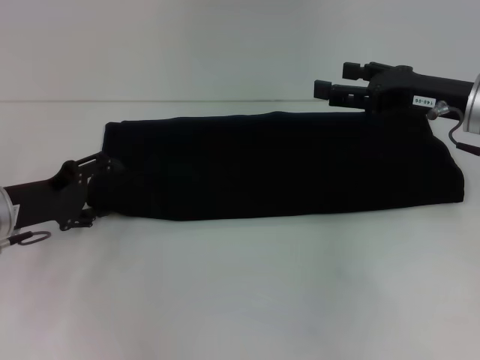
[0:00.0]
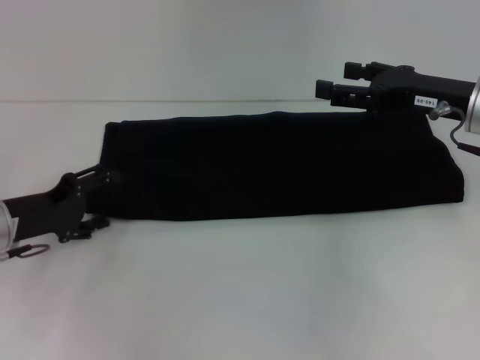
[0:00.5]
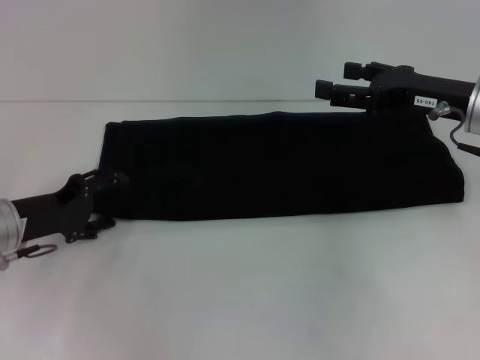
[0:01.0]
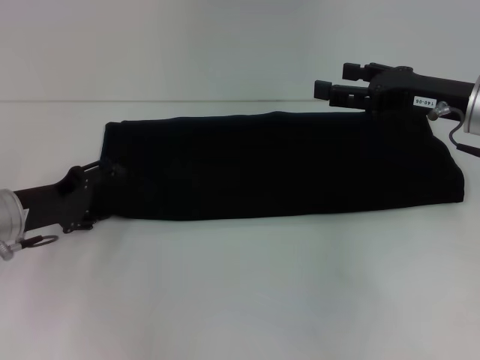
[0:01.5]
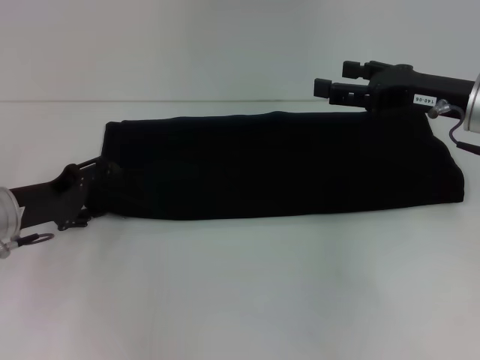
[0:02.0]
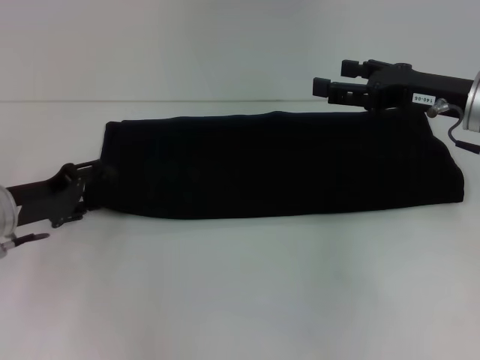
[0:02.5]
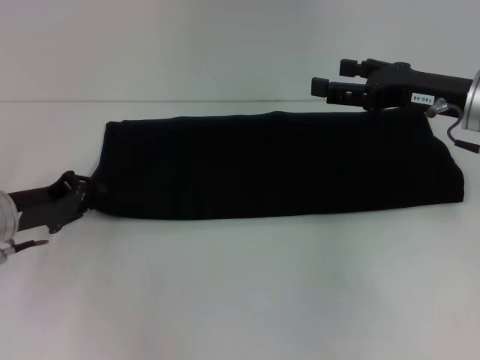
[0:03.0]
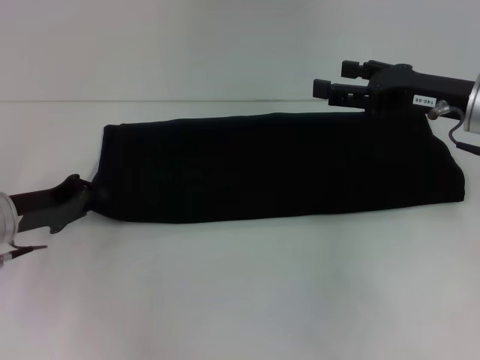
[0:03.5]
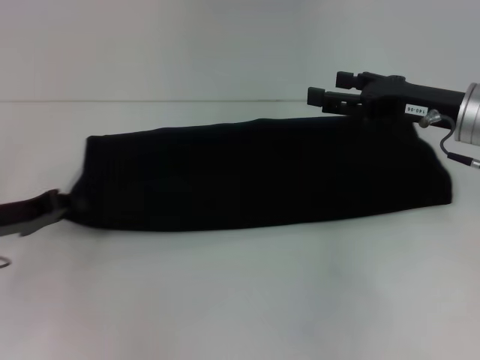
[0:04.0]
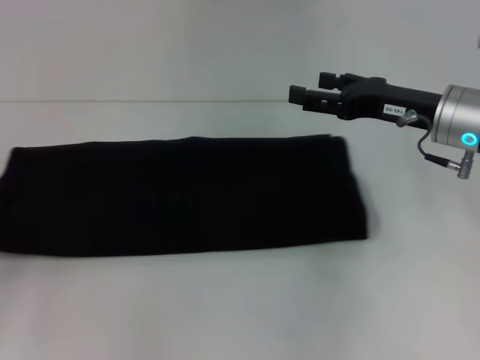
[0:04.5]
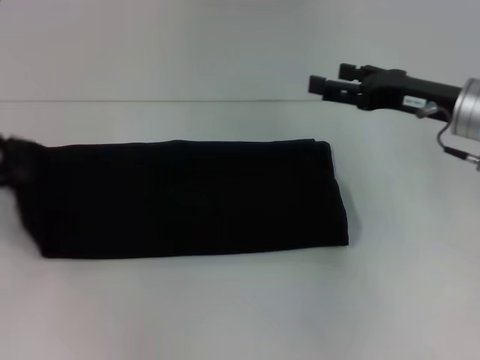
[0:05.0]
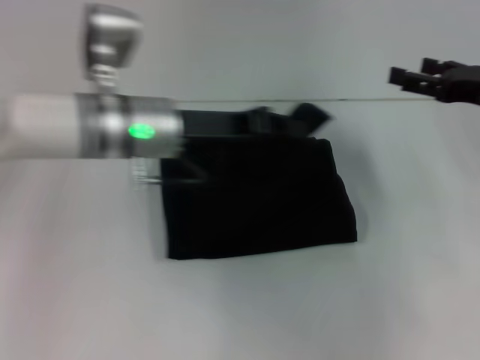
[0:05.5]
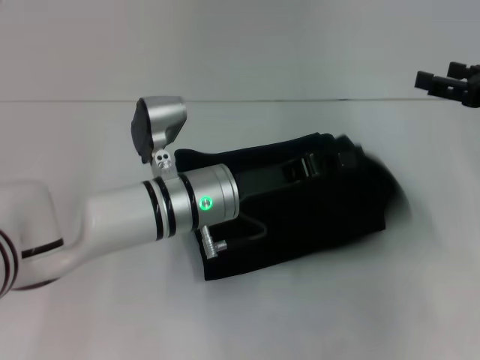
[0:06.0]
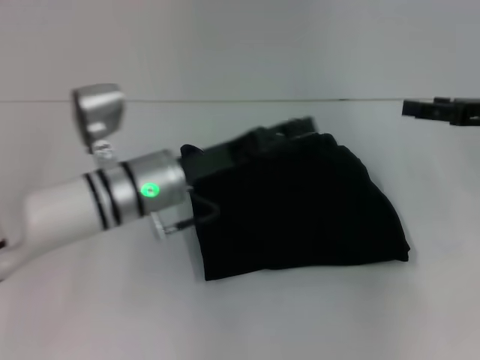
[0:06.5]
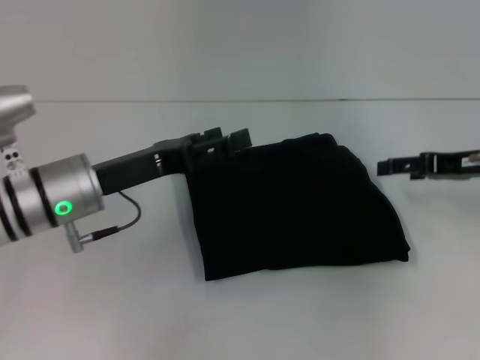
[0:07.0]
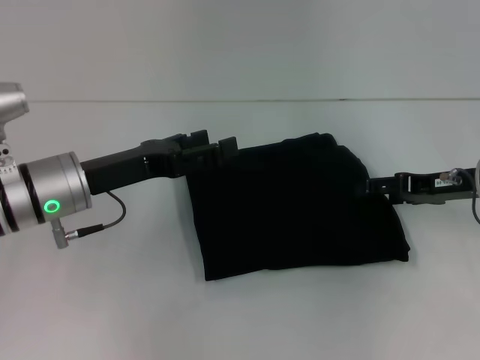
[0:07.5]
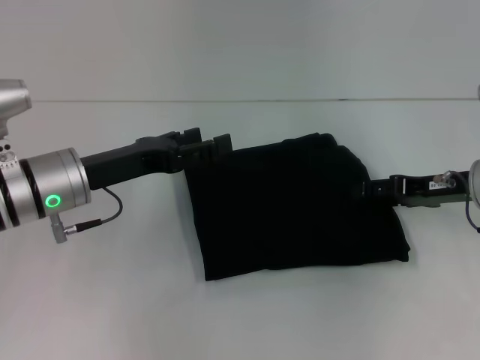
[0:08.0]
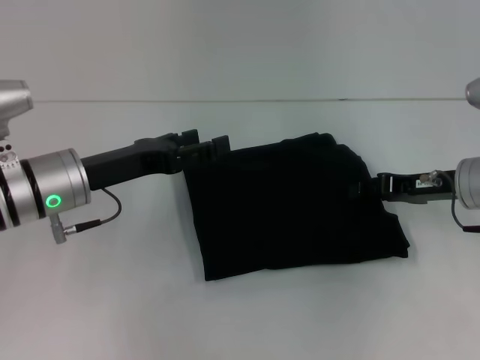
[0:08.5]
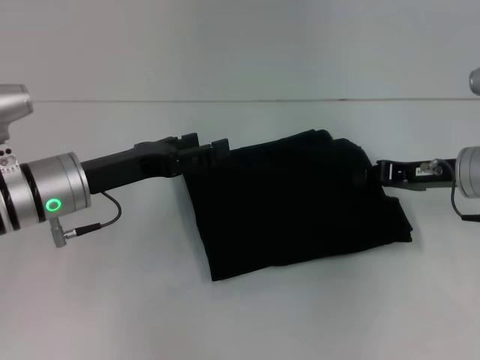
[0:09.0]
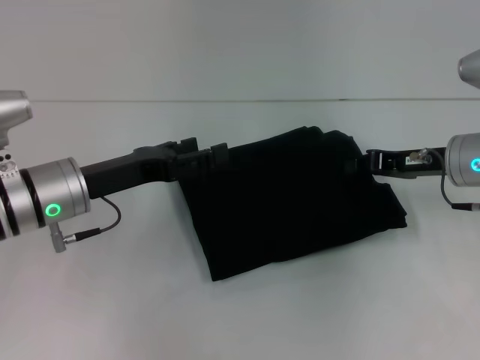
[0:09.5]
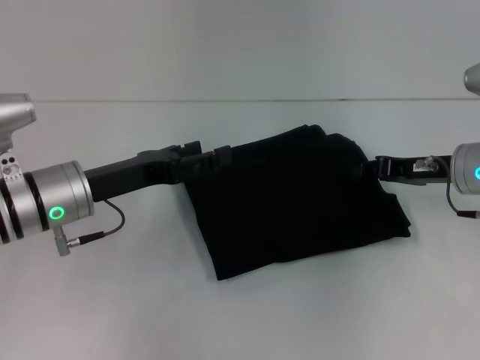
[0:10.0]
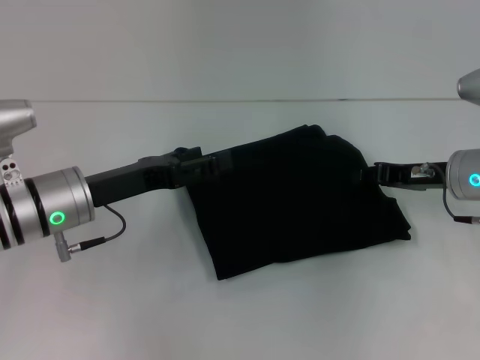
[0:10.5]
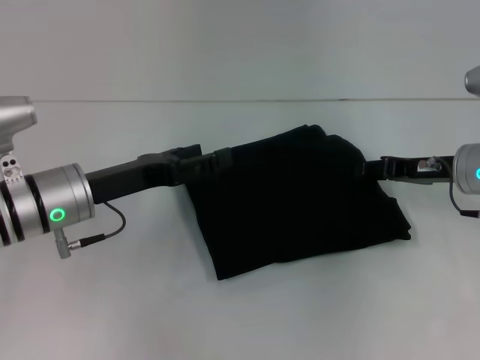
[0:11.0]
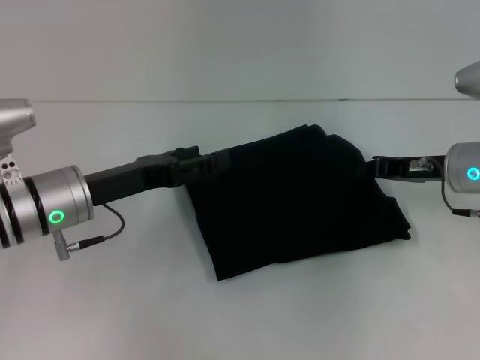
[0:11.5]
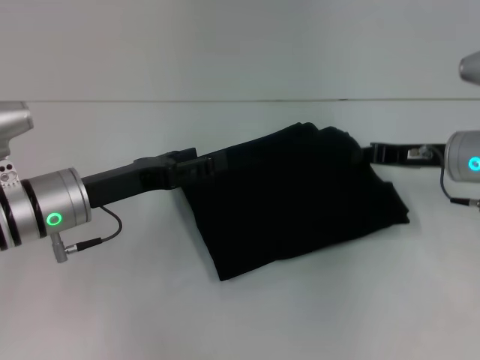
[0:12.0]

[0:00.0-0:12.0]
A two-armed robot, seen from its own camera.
Step, 0:00.0 to 0:06.0: Fold the clothes with your left hand.
0:00.0 to 0:02.0: There are only small adjustments of the grippers.
0:02.0 to 0:04.0: The left gripper closes.
0:04.0 to 0:06.0: The left gripper heads to the right, covering some 25 cm, while the right gripper shifts about 10 cm to the right.
0:06.0 to 0:08.0: The left gripper is displaced to the left by roughly 15 cm, and opens its fingers. Meanwhile the right gripper is displaced downward and to the left by approximately 10 cm.
0:08.0 to 0:10.0: The right gripper closes.
0:10.0 to 0:12.0: The grippers move only a little.

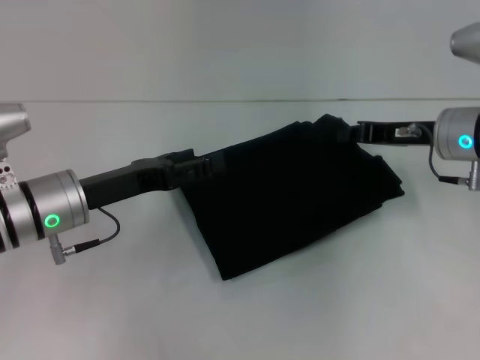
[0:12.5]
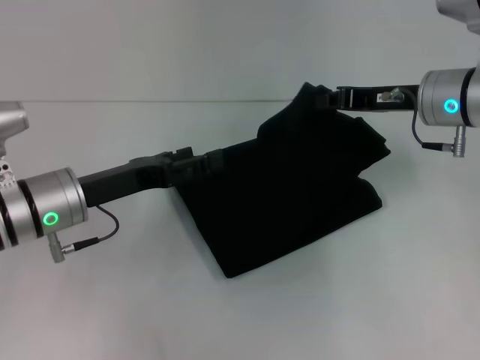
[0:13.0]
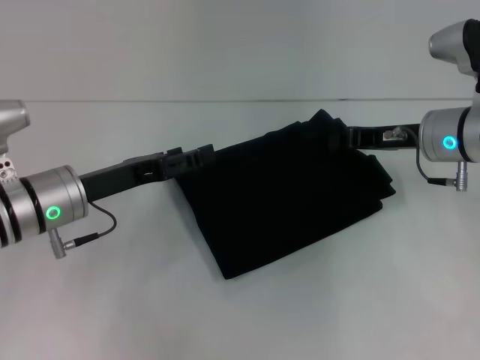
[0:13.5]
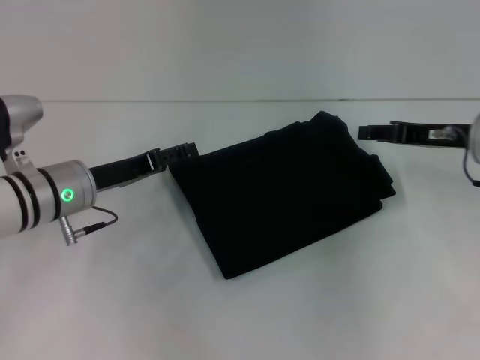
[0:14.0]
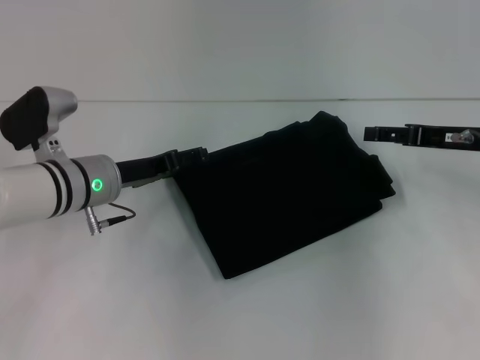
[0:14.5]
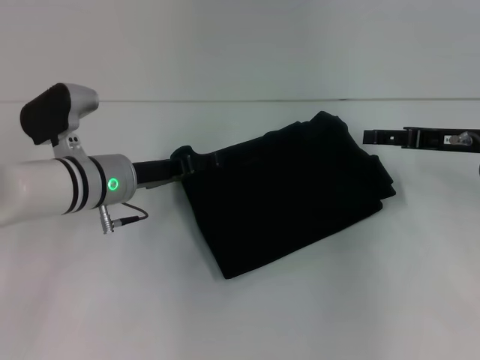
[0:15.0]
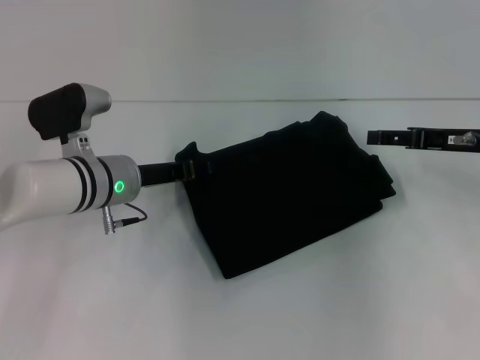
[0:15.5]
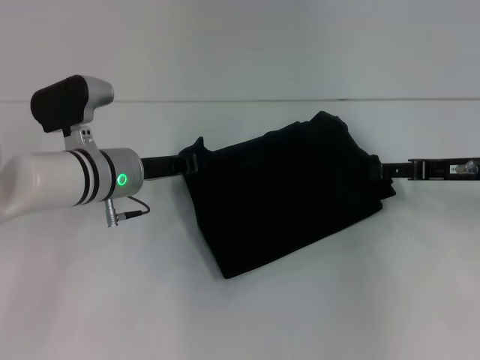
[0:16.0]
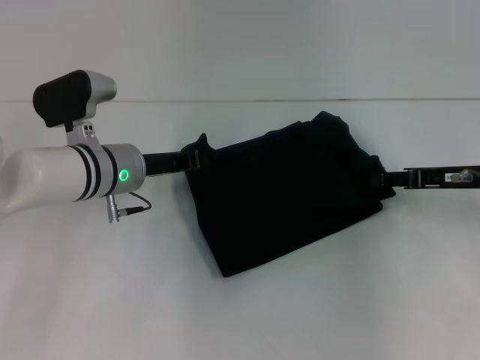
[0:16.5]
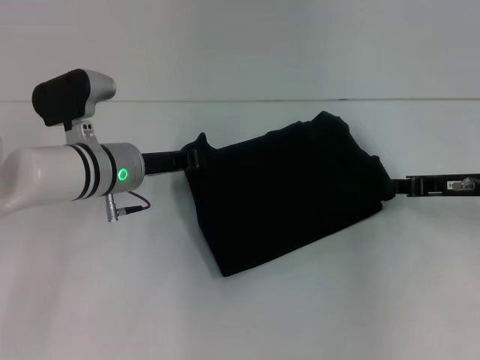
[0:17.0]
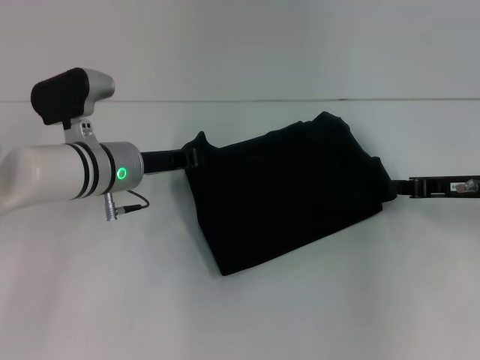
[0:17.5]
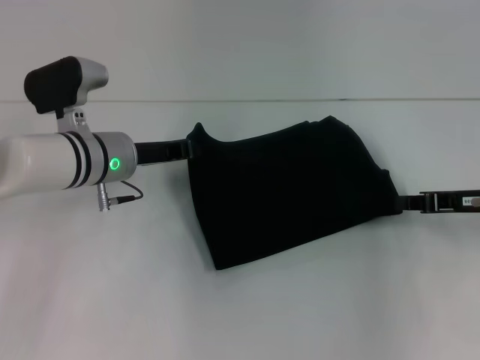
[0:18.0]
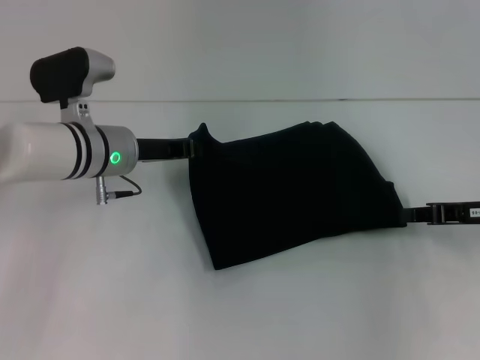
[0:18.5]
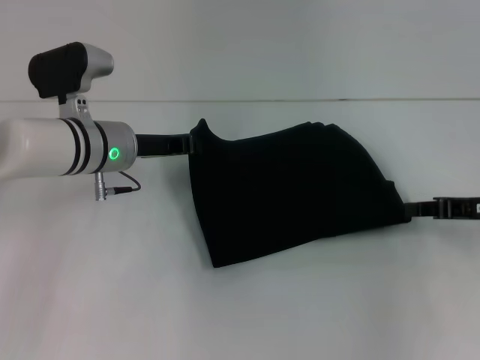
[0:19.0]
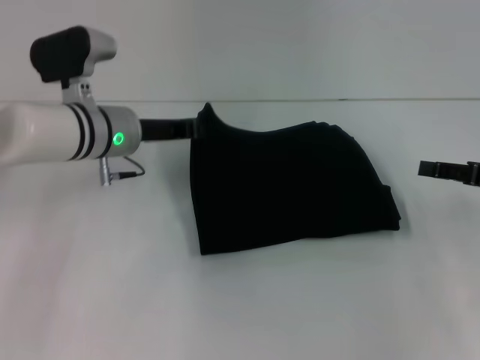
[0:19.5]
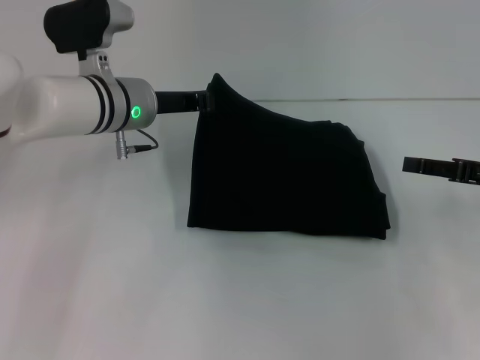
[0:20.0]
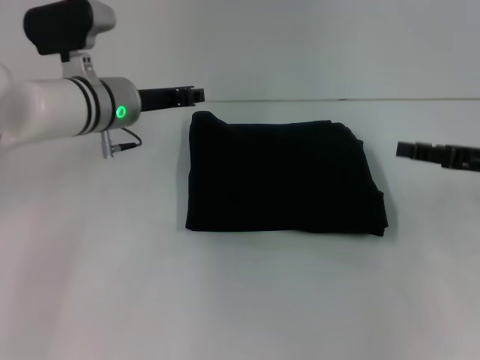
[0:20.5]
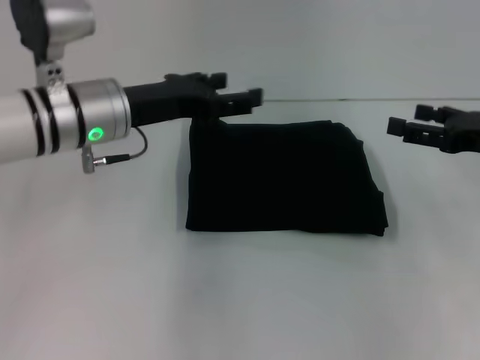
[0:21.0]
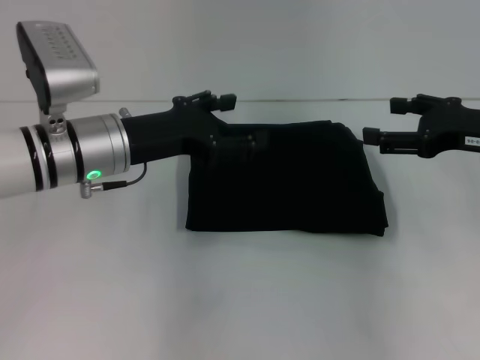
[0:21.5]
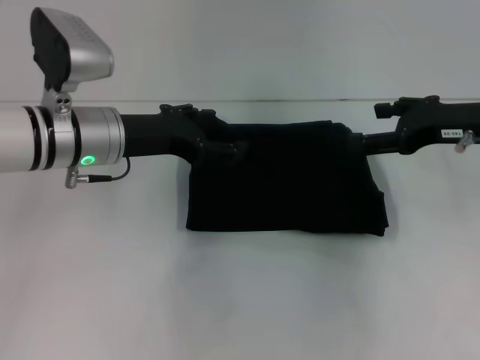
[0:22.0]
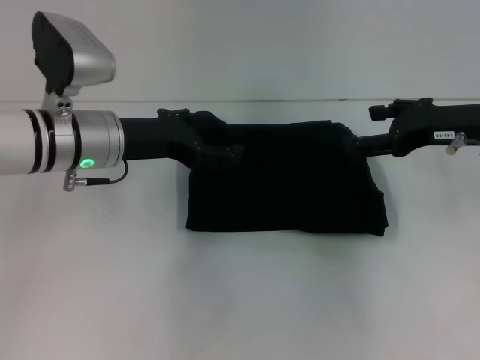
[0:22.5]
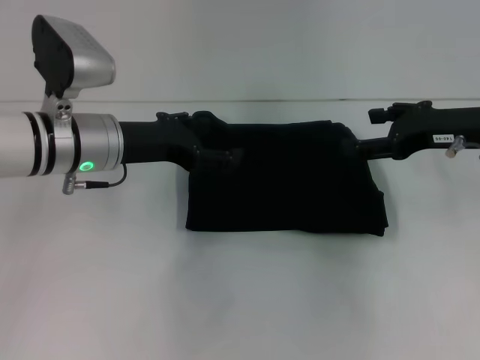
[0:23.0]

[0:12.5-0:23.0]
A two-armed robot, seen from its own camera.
0:12.5 to 0:14.5: The left gripper goes roughly 5 cm forward. The right gripper shifts by some 5 cm, and opens its fingers.
0:14.5 to 0:16.5: The left gripper closes up.
0:16.5 to 0:19.0: The right gripper closes its fingers.
0:19.0 to 0:21.0: The left gripper goes some 5 cm upward, and opens its fingers; the right gripper opens its fingers.
0:21.0 to 0:23.0: The right gripper goes approximately 5 cm to the left.

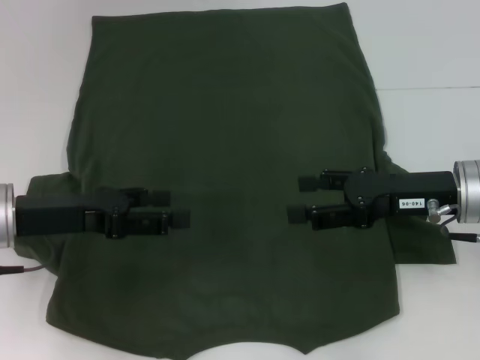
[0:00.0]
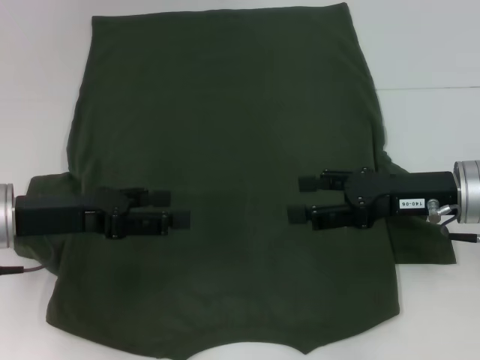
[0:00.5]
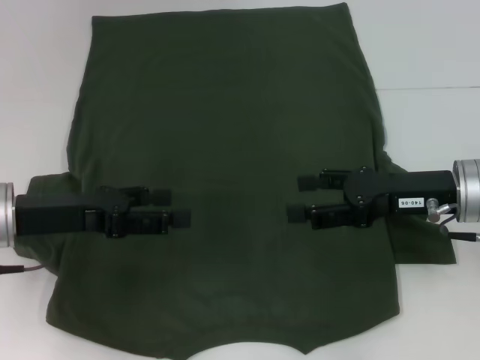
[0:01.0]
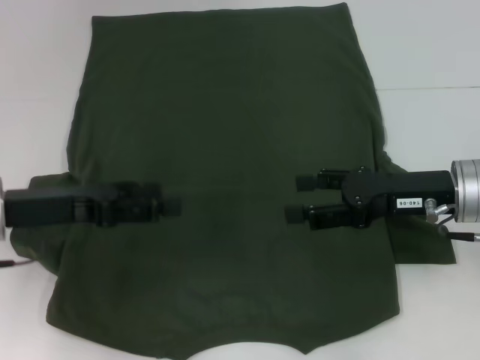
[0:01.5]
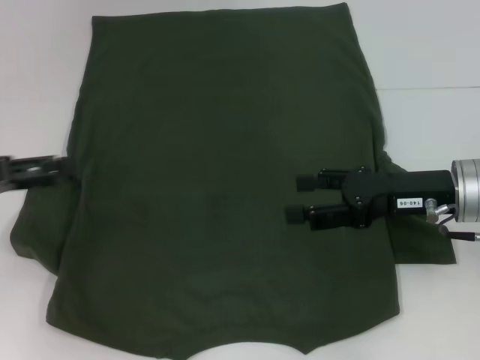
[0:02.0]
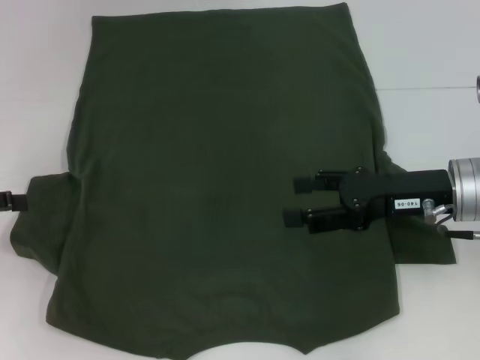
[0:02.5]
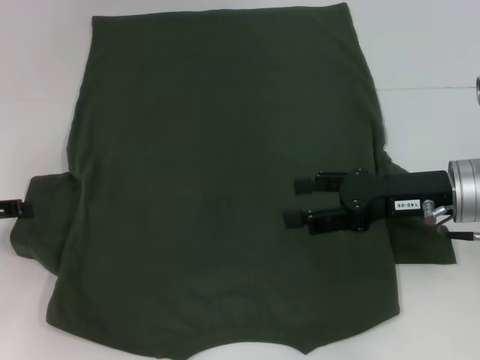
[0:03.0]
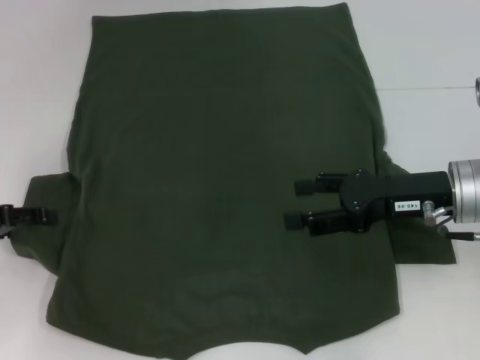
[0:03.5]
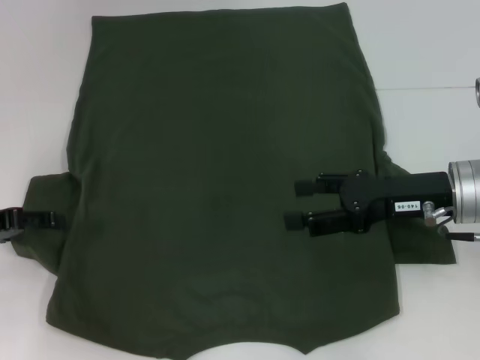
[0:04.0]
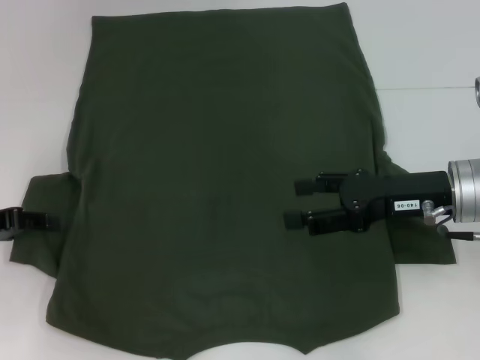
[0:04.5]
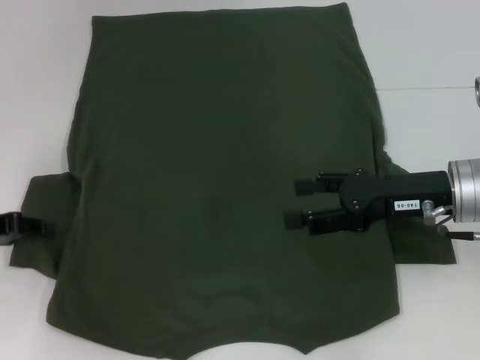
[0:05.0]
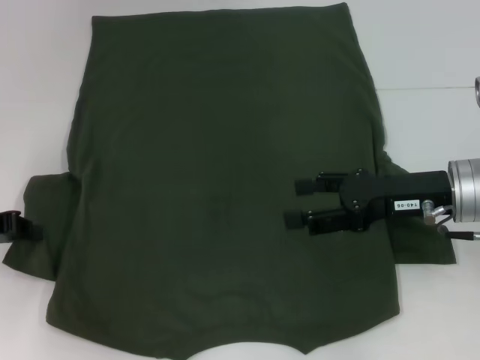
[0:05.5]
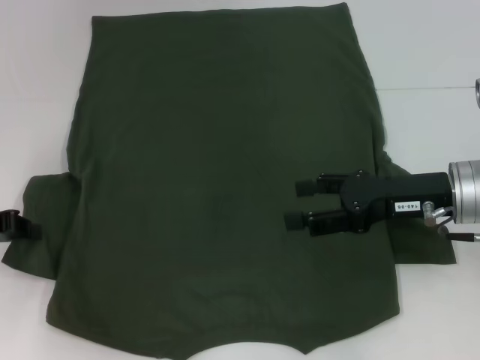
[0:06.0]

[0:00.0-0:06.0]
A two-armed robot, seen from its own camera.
0:00.0 to 0:02.0: The left gripper goes some 10 cm to the left.
0:02.0 to 0:04.0: The left gripper goes roughly 5 cm downward.
0:04.0 to 0:06.0: The left gripper closes its fingers.
